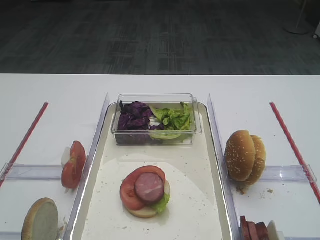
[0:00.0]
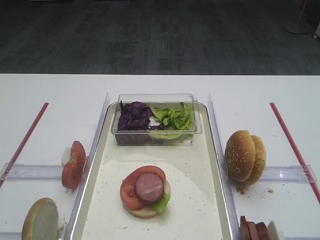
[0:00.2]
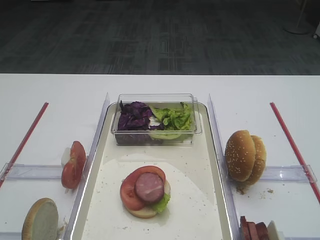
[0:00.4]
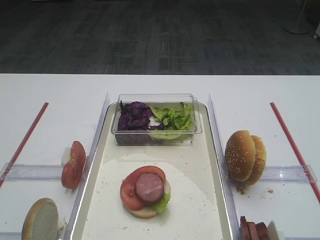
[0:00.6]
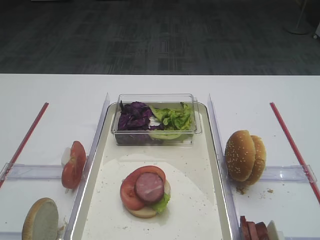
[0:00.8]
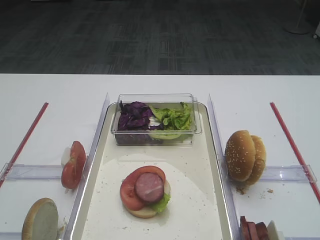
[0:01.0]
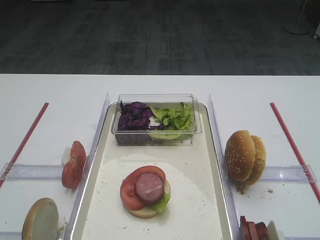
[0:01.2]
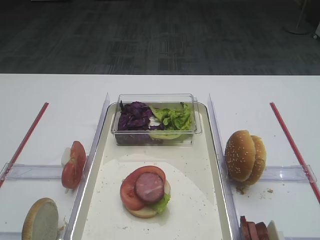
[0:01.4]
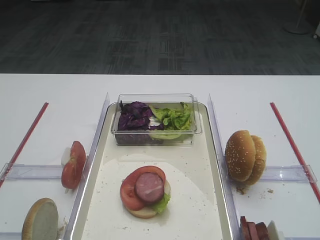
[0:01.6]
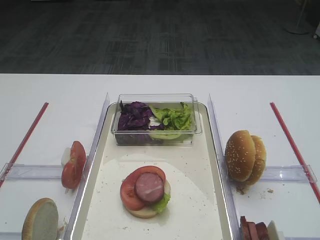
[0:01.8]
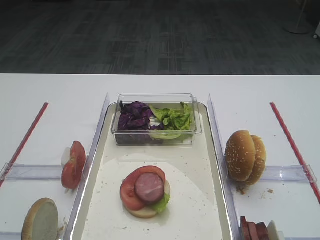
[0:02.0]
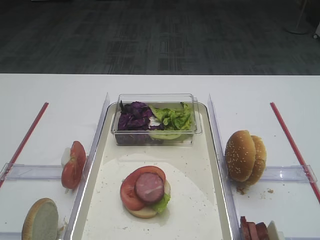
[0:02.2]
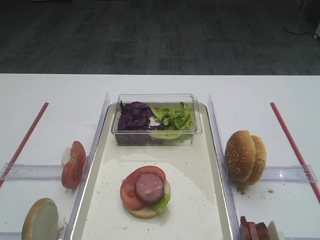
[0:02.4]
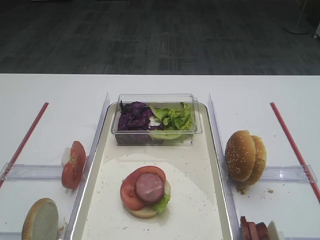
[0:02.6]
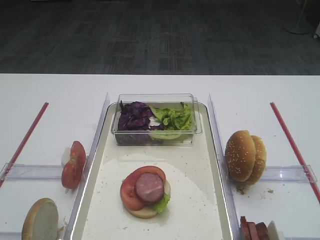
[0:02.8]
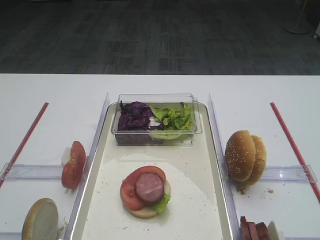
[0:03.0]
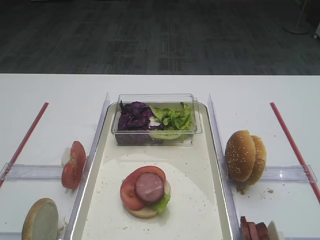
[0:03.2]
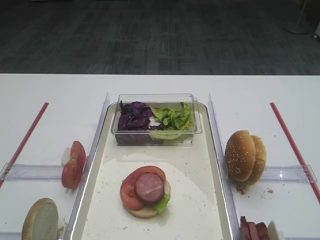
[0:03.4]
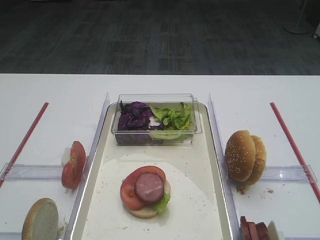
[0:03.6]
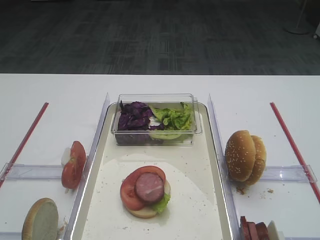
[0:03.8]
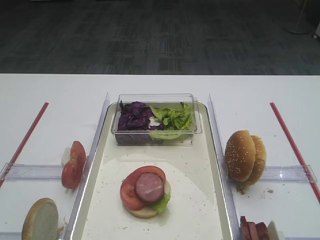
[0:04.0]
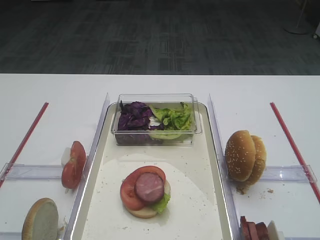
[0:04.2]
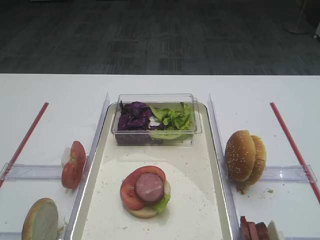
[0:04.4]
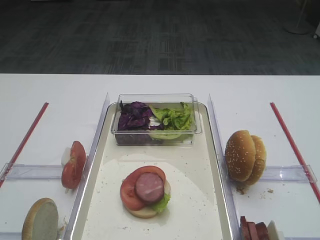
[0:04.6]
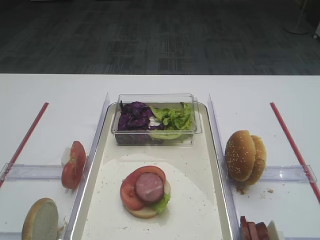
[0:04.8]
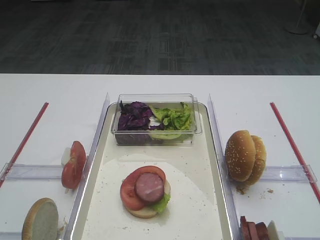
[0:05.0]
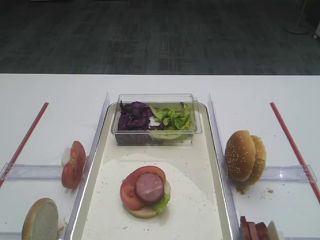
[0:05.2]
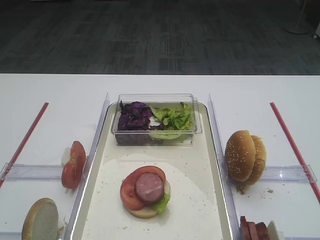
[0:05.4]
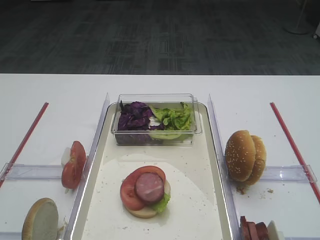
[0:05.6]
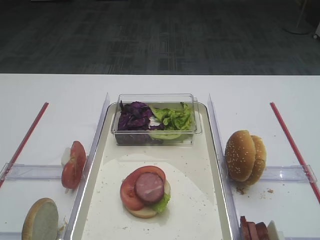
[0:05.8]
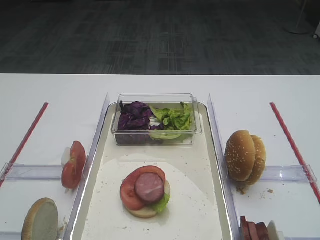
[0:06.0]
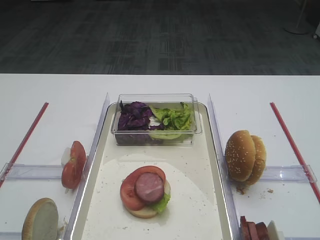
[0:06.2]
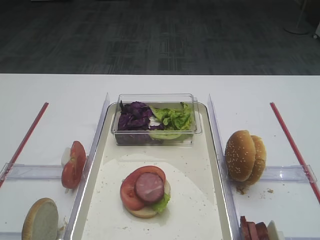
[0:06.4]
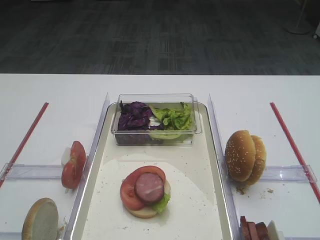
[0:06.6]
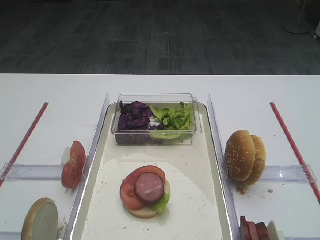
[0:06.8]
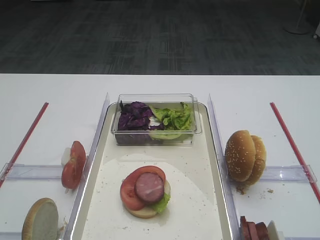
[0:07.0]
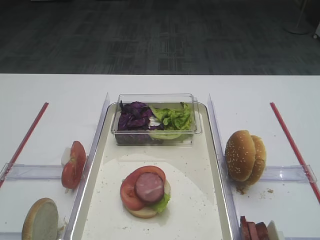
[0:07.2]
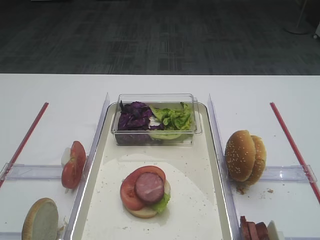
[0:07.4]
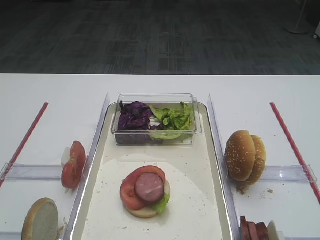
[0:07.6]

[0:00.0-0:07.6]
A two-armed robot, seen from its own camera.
0.0 to 7.6 s: The two grippers keep their place.

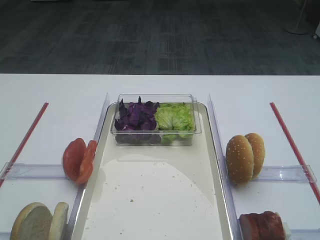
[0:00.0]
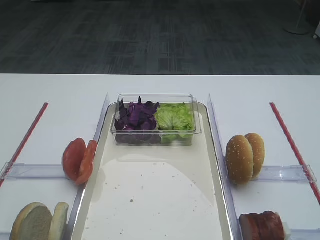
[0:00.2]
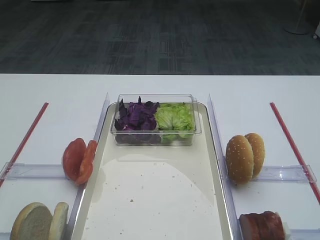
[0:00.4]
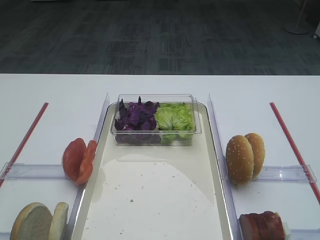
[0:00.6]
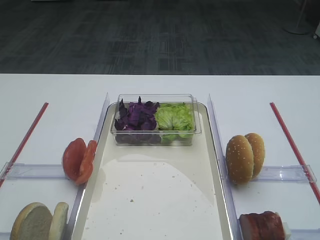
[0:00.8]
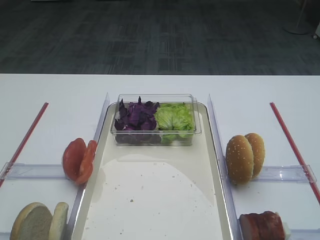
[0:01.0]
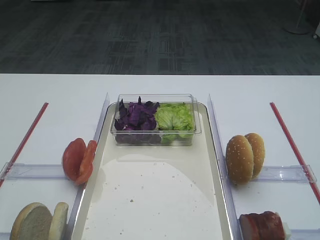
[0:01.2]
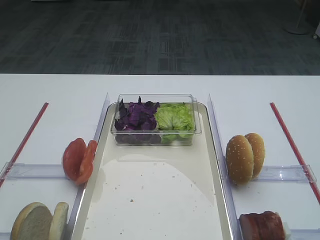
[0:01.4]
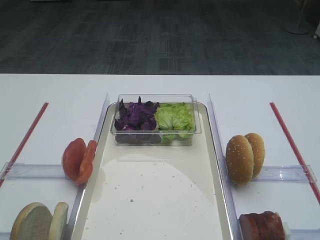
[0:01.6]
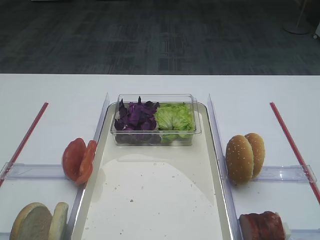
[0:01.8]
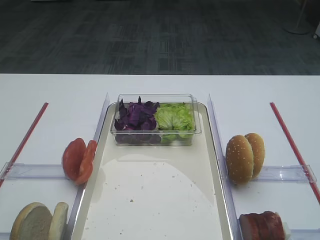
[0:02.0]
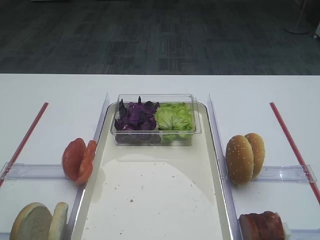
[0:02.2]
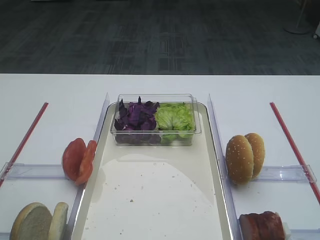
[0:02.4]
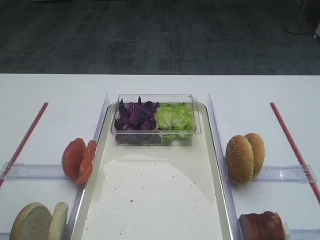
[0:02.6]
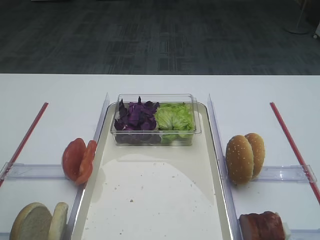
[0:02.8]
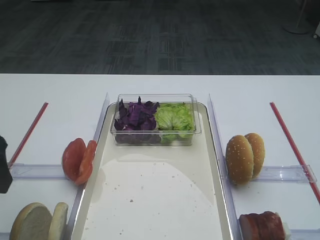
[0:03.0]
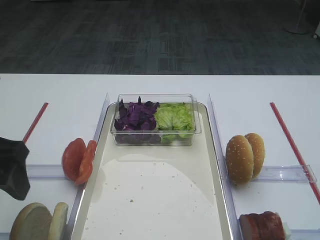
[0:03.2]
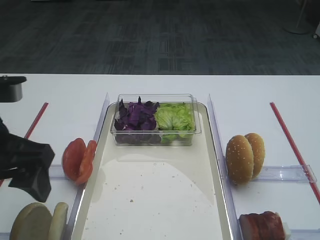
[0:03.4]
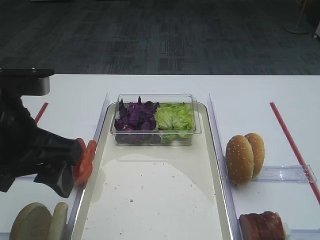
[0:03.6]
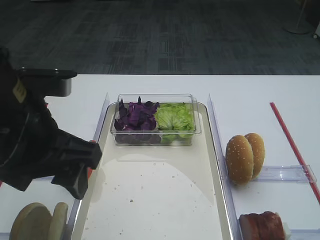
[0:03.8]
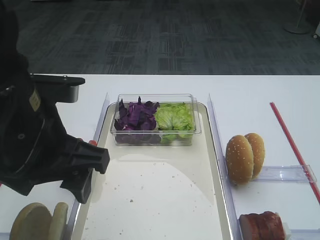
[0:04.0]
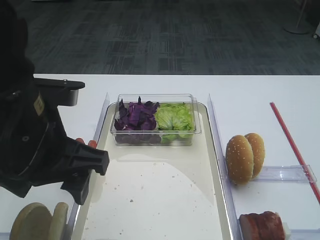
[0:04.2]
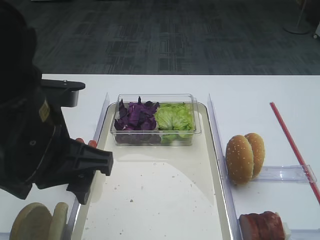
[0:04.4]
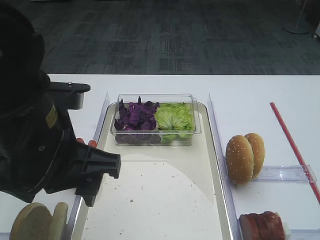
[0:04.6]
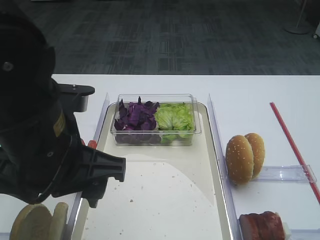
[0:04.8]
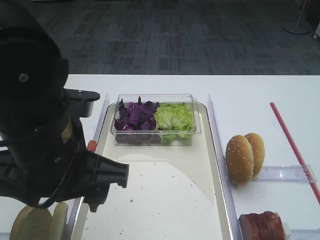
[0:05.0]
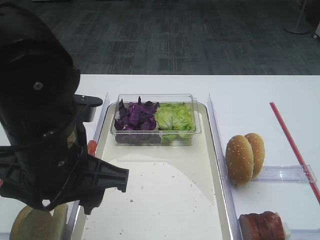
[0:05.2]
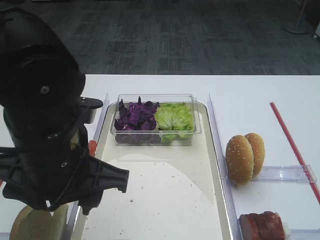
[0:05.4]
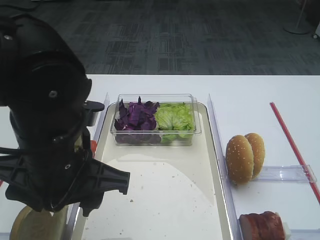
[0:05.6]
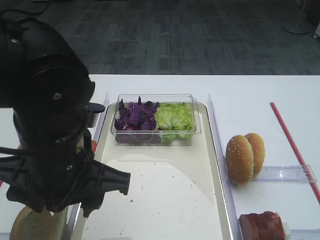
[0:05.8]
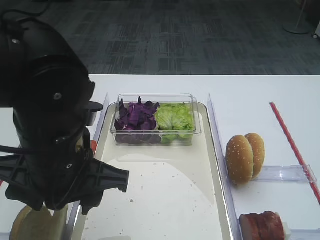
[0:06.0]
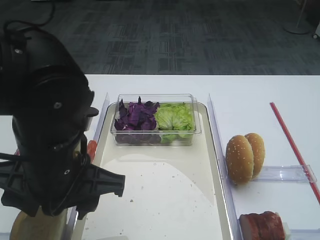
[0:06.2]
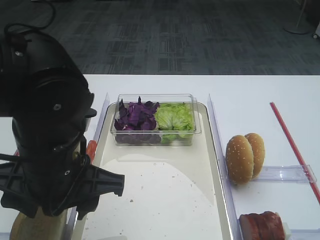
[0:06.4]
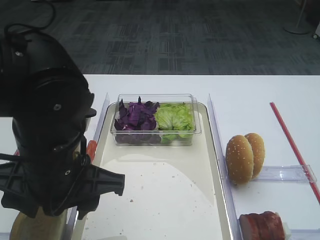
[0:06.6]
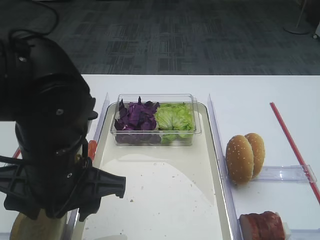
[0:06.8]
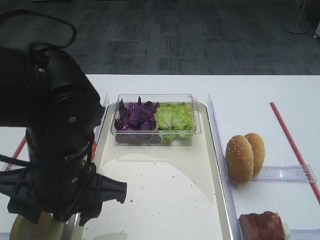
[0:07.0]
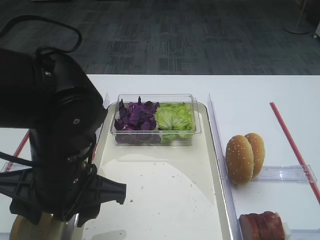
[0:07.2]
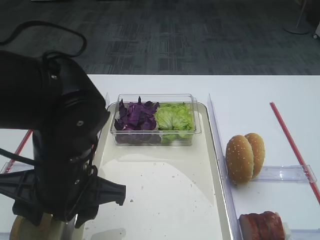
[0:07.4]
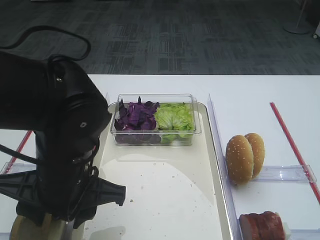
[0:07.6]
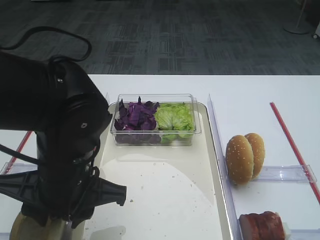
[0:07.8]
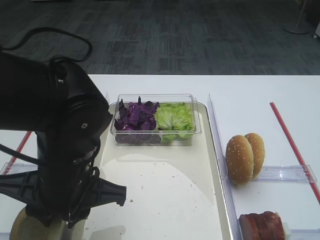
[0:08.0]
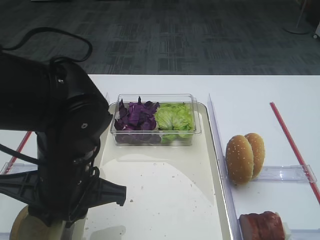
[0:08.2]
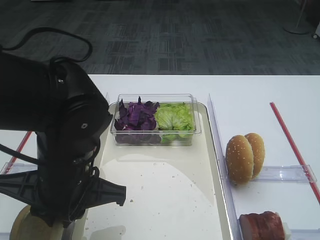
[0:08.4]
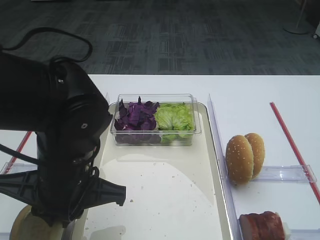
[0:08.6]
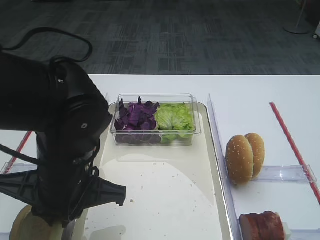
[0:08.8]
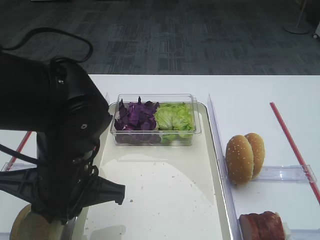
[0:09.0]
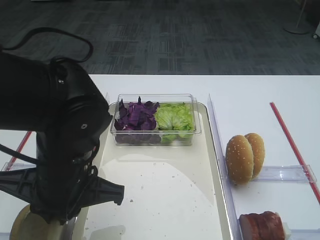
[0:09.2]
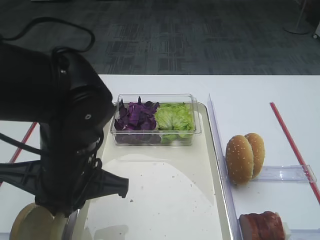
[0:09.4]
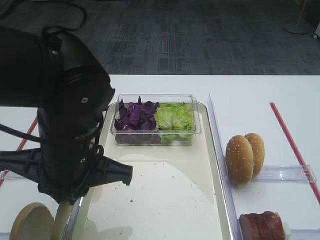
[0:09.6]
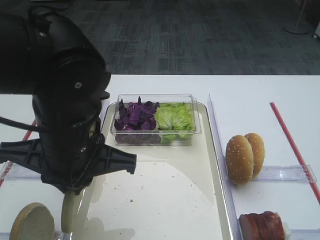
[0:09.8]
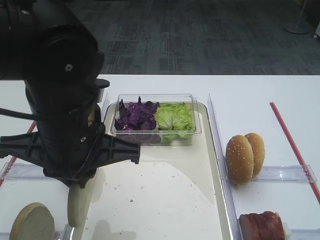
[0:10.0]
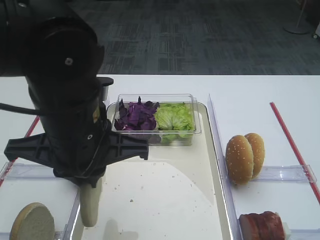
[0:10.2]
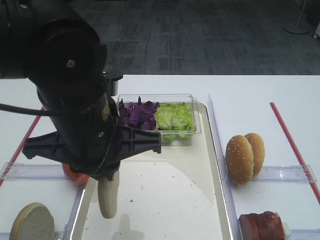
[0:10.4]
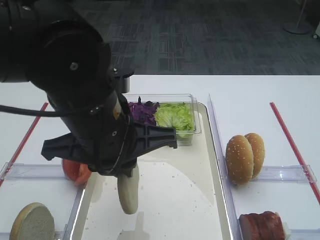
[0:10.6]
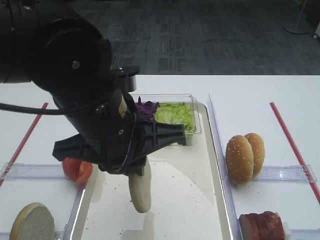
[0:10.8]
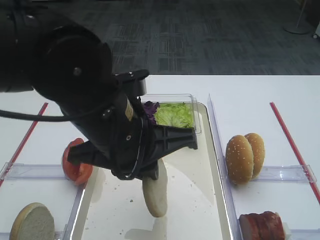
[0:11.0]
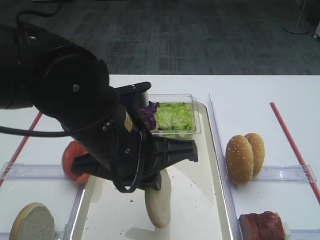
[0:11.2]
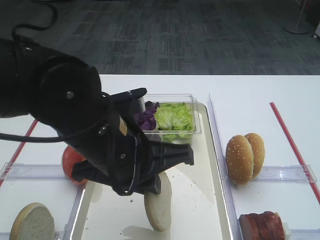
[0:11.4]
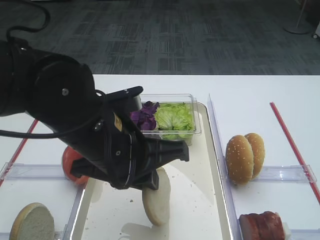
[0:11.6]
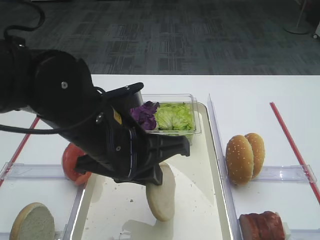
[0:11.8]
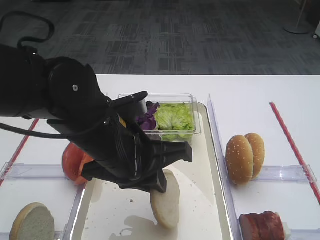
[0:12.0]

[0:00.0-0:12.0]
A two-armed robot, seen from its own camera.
Step, 0.0 to 10.0 s: Pick up the bread slice with the left gripper.
1.6 to 3.0 s: The left gripper goes roughly 15 cm forward.
3.0 to 4.4 s: The left gripper is displaced to the right by some 10 cm.
4.4 to 6.0 s: The grippers make only small movements.
6.0 to 7.6 s: The grippers make only small movements.
7.6 to 9.0 s: The left gripper closes.
9.0 to 10.4 s: The left gripper goes roughly 5 cm upward.
10.4 to 12.0 s: The left gripper changes place by approximately 5 cm.

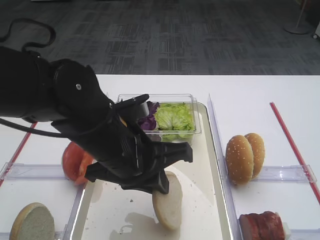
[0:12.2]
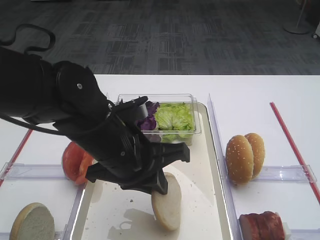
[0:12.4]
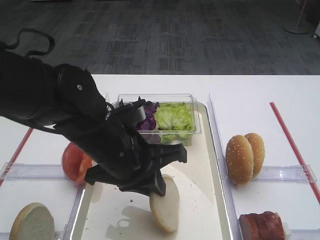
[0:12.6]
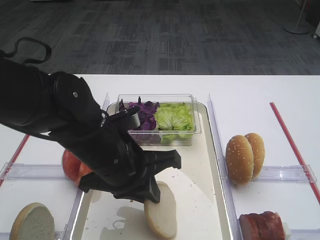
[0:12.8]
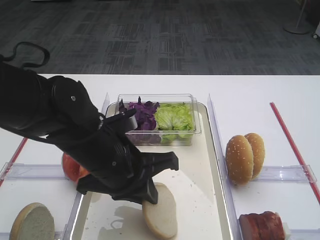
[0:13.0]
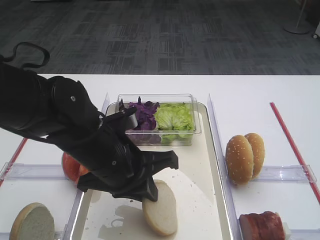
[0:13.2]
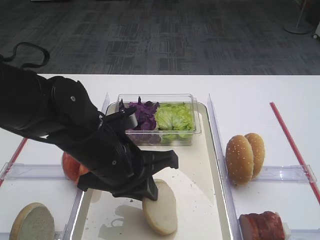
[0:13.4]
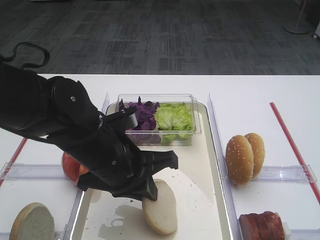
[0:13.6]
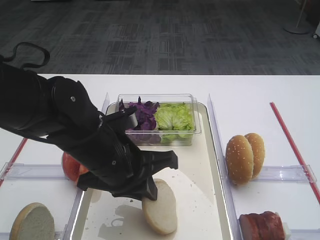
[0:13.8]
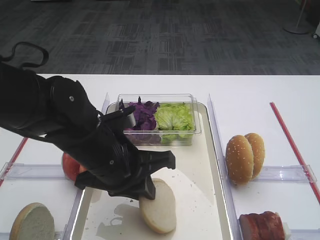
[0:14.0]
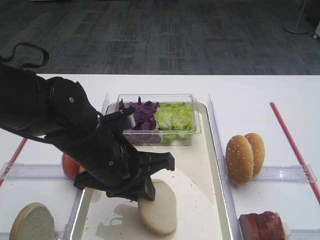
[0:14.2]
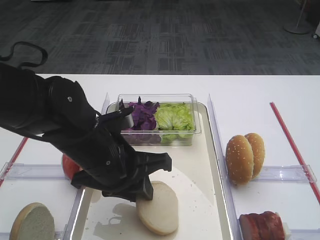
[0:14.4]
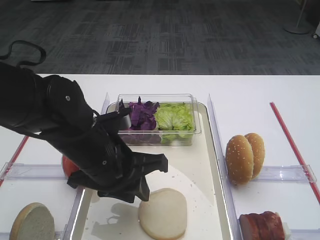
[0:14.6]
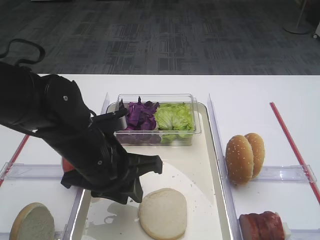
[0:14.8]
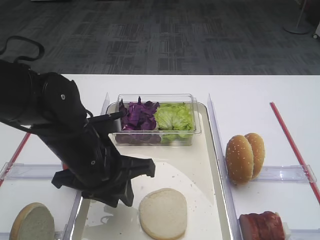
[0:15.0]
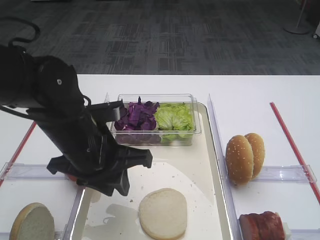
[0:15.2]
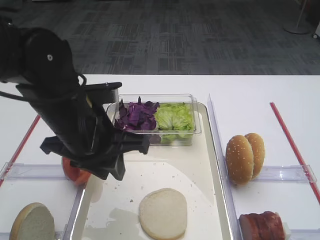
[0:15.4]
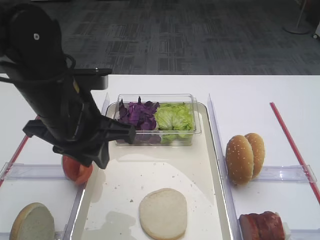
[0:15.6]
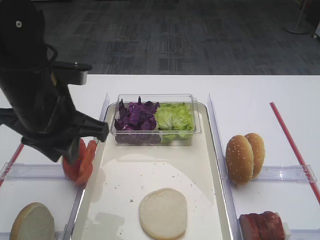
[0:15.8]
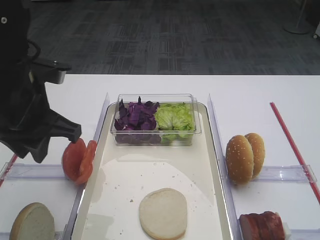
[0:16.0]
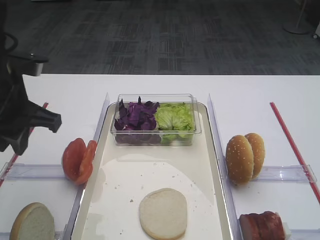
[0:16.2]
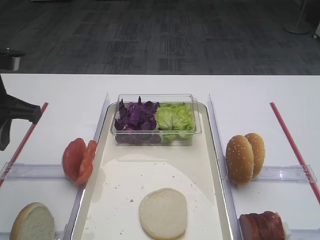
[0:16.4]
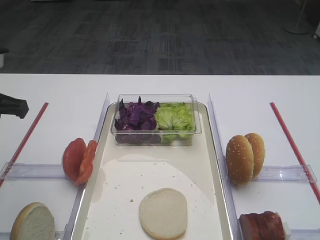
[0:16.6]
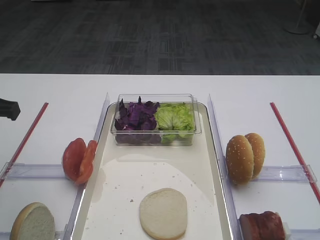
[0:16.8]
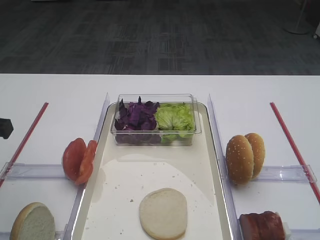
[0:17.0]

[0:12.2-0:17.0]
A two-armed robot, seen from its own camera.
Step, 12.2 to 15.0 s: Place the bread slice on the tray with the left gripper.
12.2 to 13.8 s: The grippers make only small movements.
13.8 to 15.4 s: The left gripper ends up some 5 cm from where it was.
15.4 to 17.0 s: The left gripper is displaced to the left by some 15 cm.
